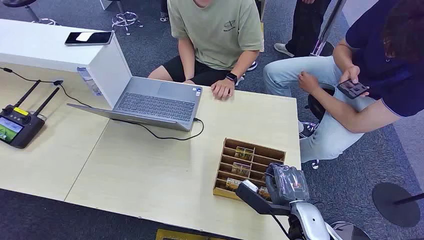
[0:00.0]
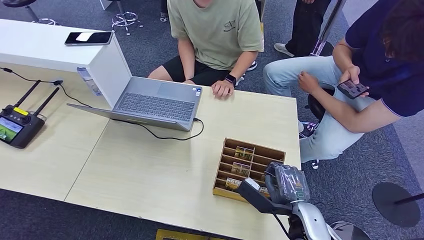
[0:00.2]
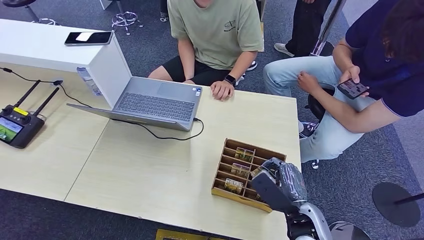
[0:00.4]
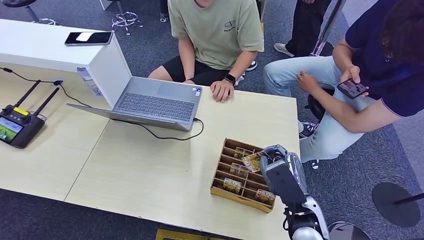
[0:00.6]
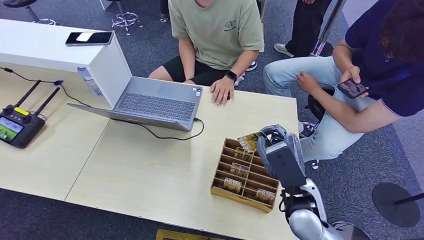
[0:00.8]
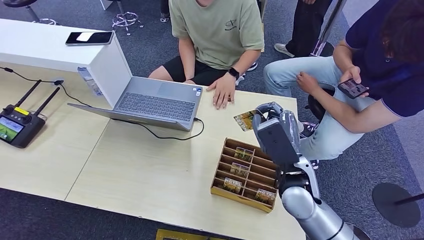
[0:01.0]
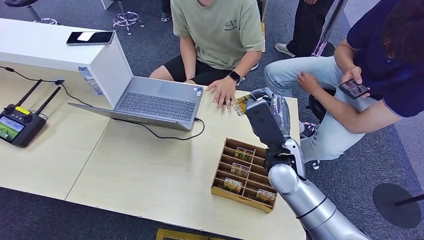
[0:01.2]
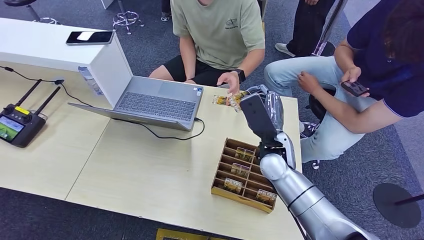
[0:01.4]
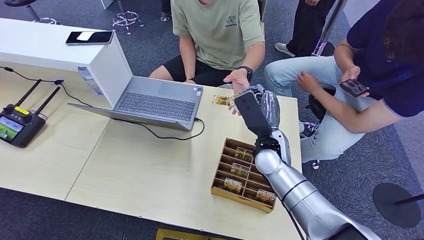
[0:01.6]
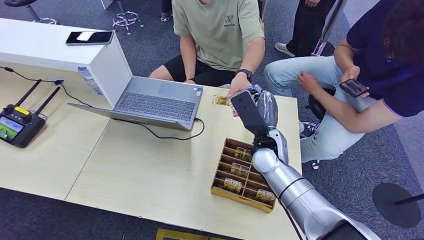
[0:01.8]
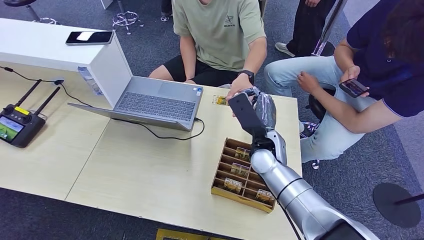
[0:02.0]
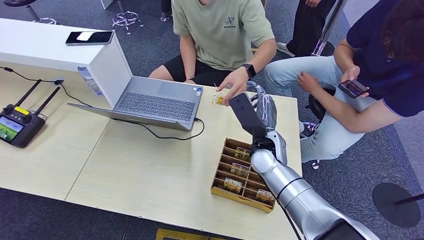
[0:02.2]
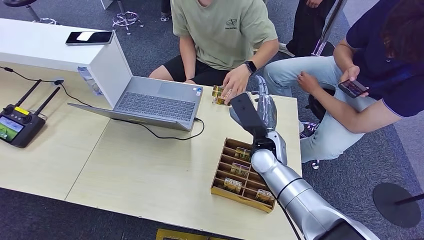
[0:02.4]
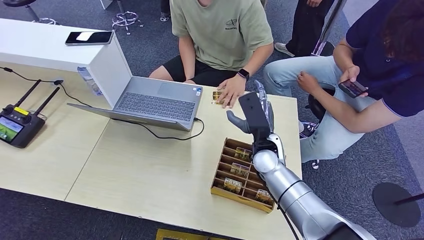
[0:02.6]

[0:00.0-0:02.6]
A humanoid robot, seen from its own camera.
Step, 0:00.0 to 0:01.0: Pick up the room card from the card holder.
Step, 0:01.2 to 0:02.6: Hand the room card to the target.
0:01.2 to 0:02.6: The right hand ends up some 5 cm from where it was.
